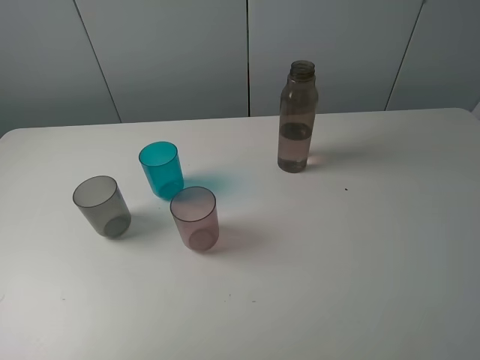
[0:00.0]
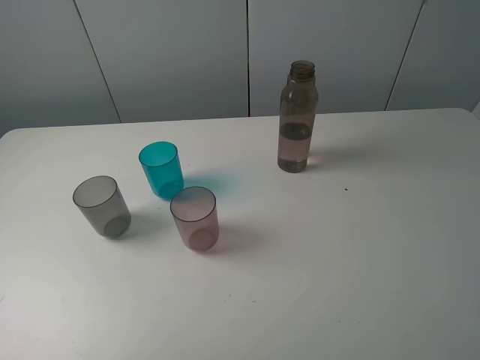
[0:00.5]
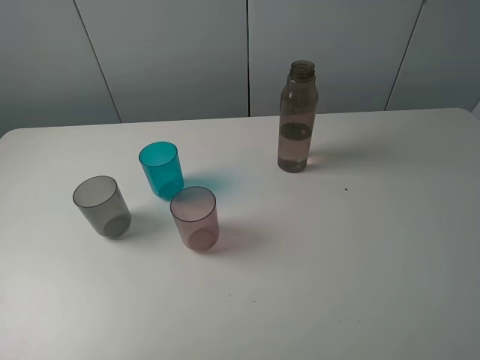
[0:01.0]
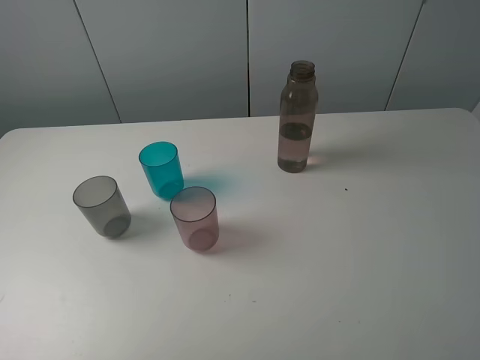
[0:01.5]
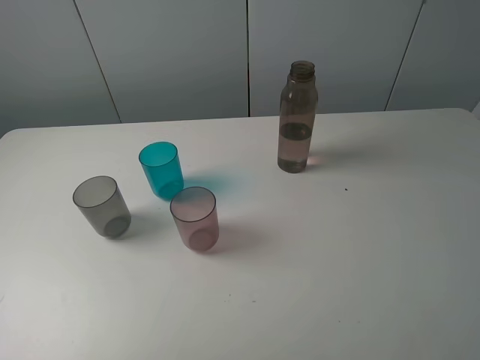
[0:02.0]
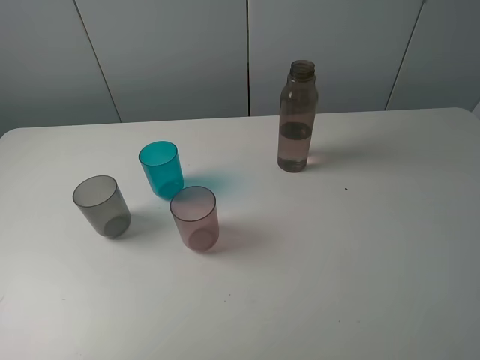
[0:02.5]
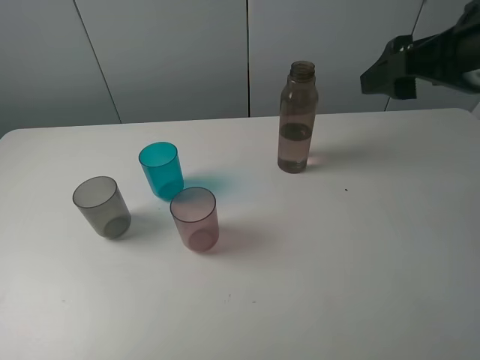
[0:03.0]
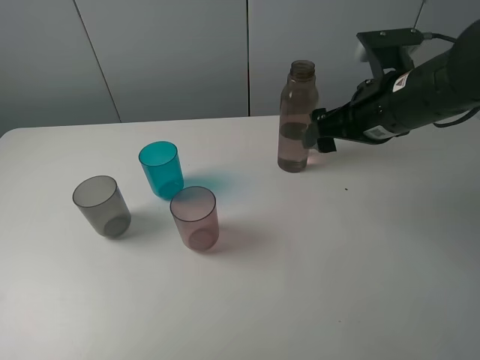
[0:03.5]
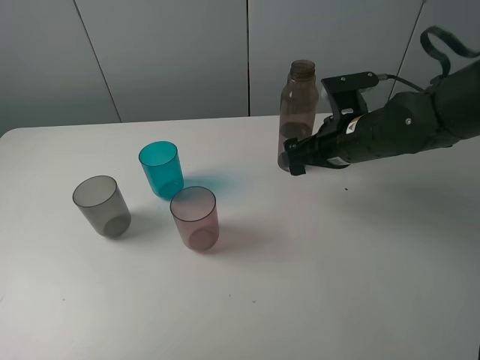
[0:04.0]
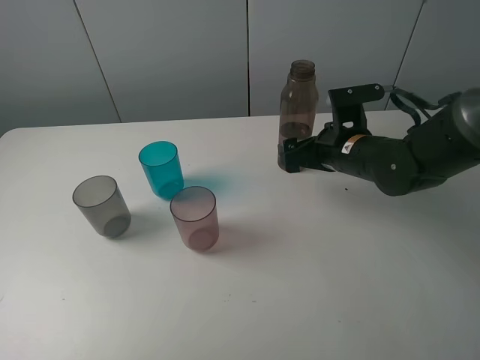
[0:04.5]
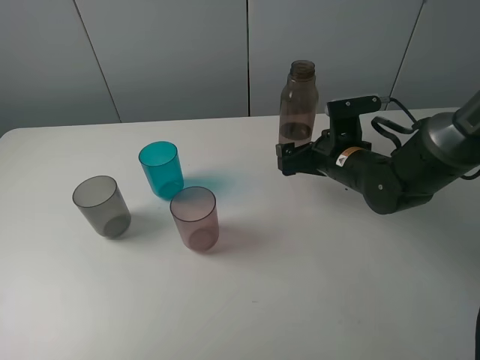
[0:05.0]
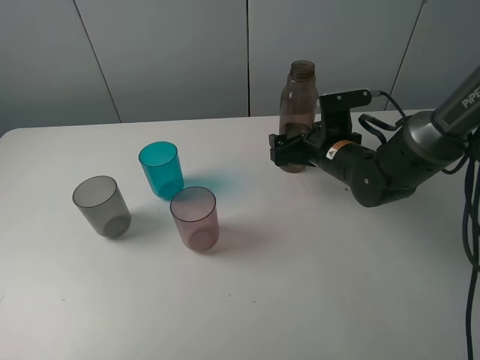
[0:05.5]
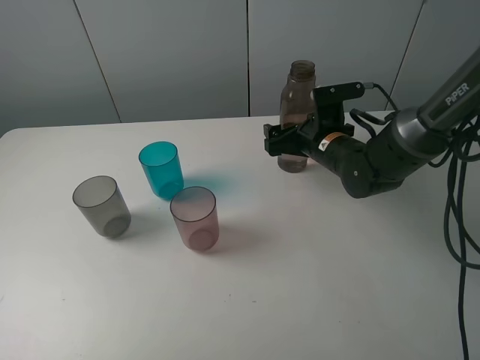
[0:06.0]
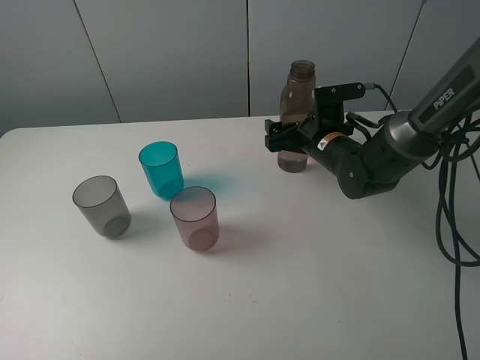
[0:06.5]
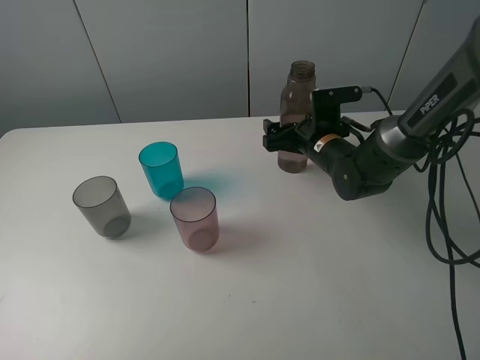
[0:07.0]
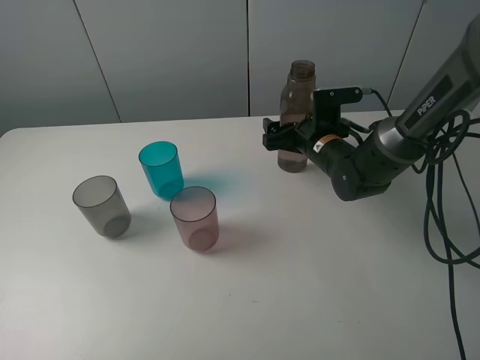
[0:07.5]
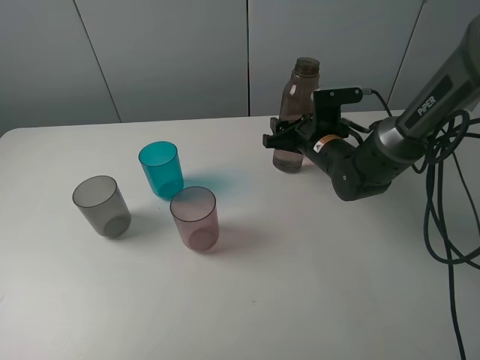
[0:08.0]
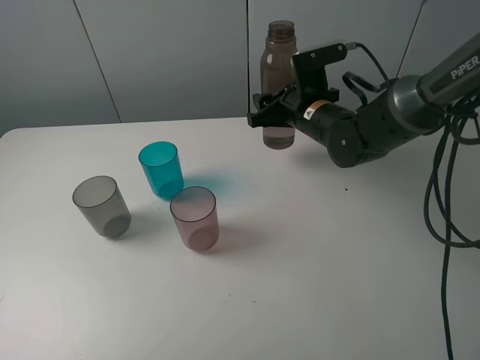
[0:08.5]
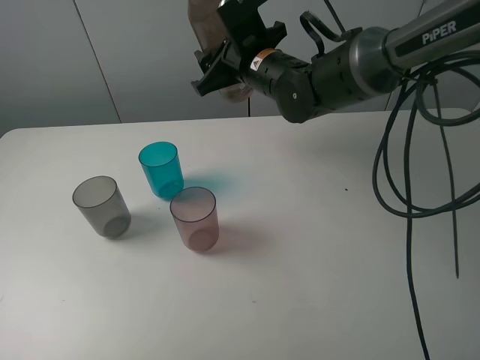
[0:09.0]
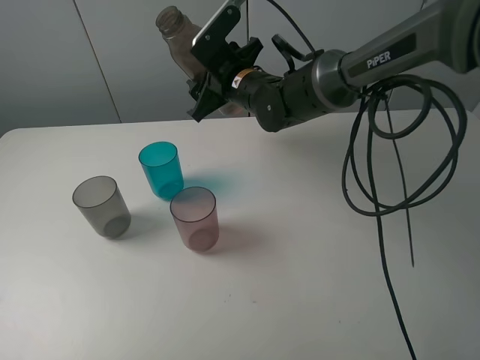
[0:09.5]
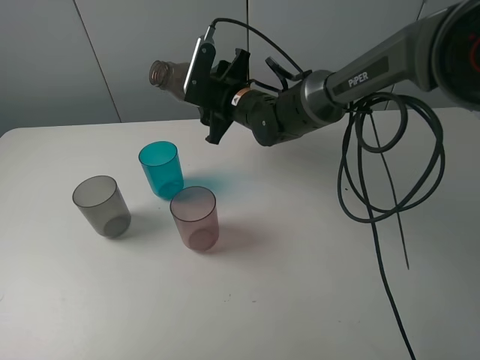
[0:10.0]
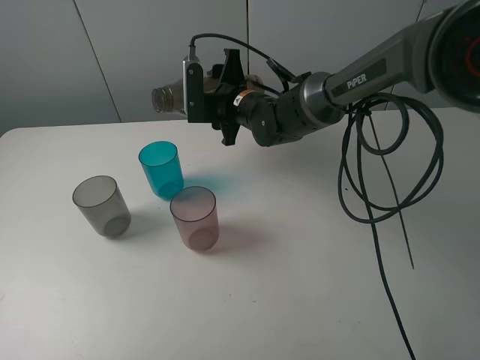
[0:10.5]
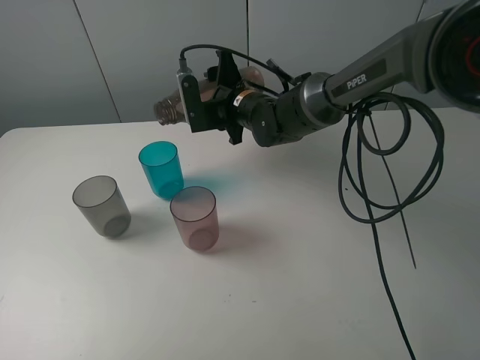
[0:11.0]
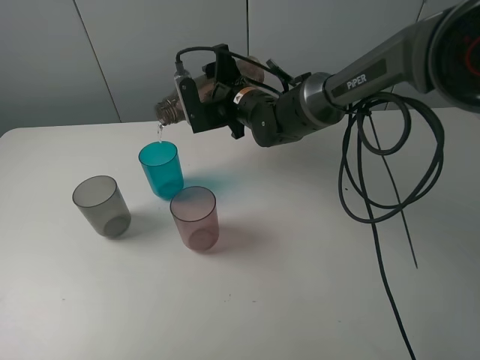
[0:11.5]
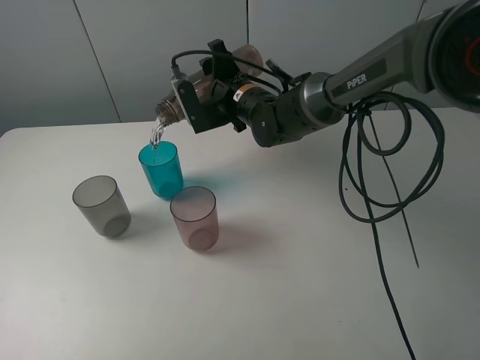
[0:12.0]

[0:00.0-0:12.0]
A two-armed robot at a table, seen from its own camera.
Task of the whole recording: pick up the bottle filled with water and pour water into the middle cup of the three cups.
Step, 0:00.0 to 0:07.5: Grasp the brown bottle with the right gripper.
0:00.0 to 0:02.0: The two grippers keep their place.
0:02.0 to 0:04.0: The right gripper heads forward, to the left and downward, covering roughly 35 cm.
0:04.0 to 0:06.0: The right gripper travels downward by approximately 5 cm.
0:06.0 to 0:08.0: The right gripper closes up.
0:08.0 to 0:10.0: The right gripper heads to the left and upward, covering approximately 15 cm.

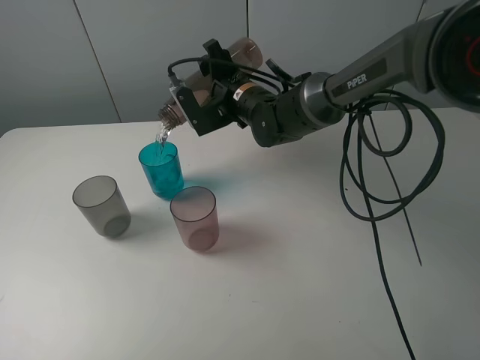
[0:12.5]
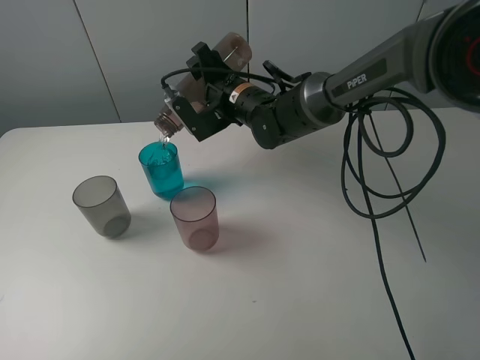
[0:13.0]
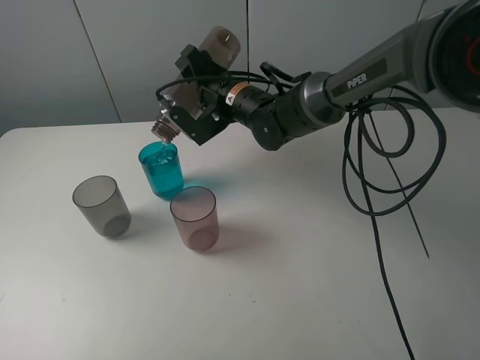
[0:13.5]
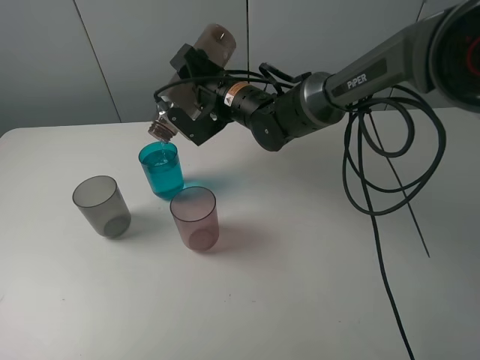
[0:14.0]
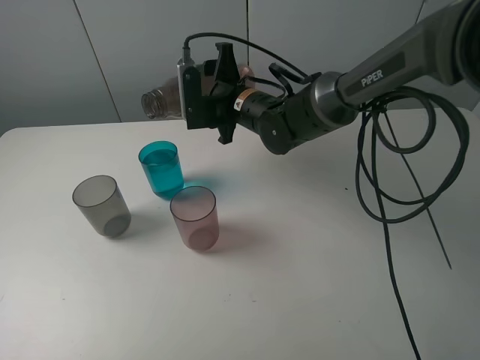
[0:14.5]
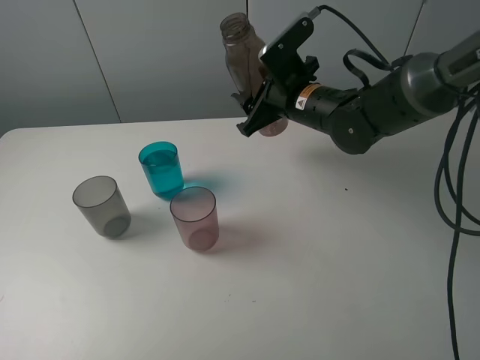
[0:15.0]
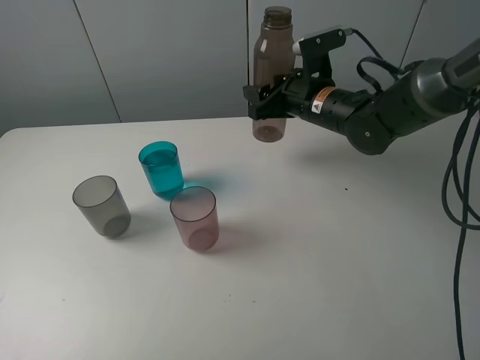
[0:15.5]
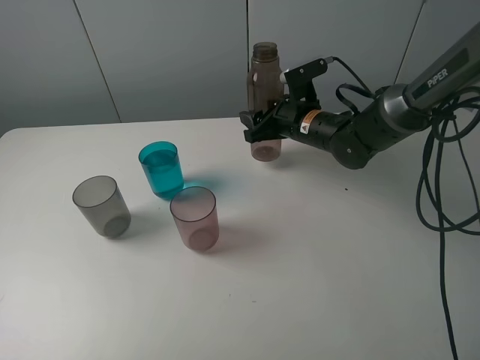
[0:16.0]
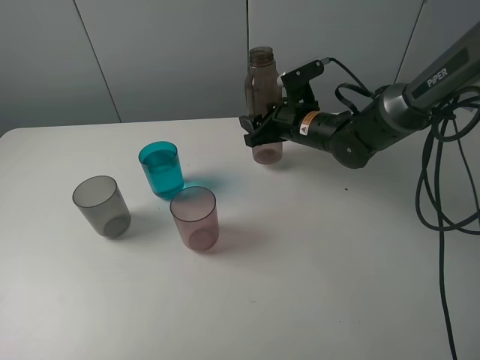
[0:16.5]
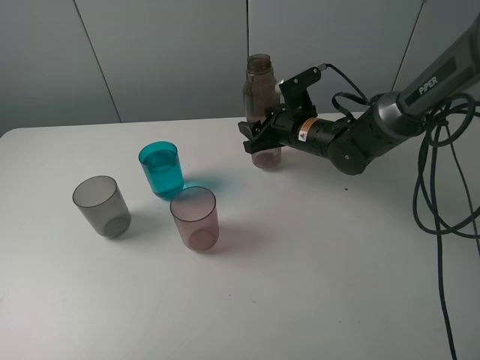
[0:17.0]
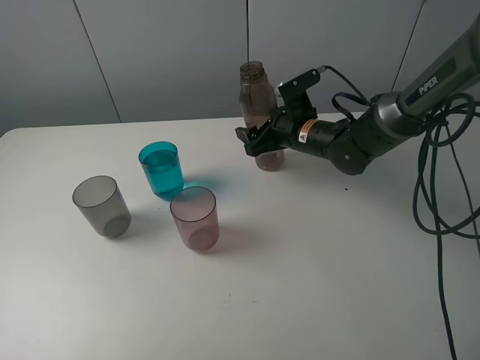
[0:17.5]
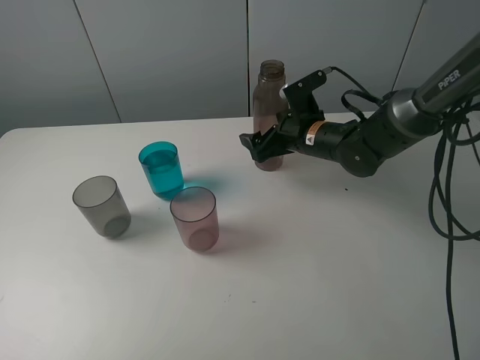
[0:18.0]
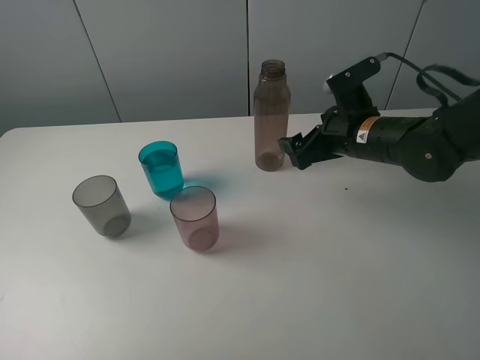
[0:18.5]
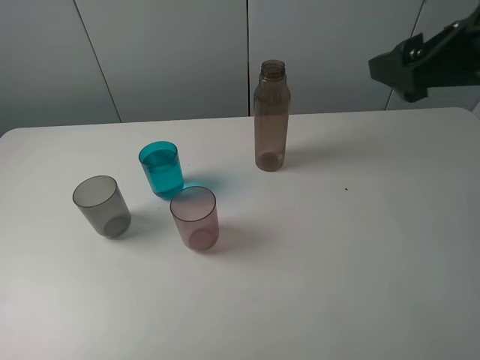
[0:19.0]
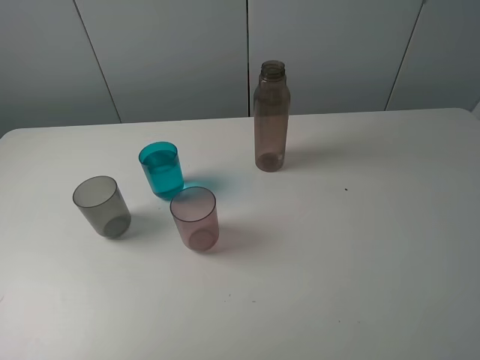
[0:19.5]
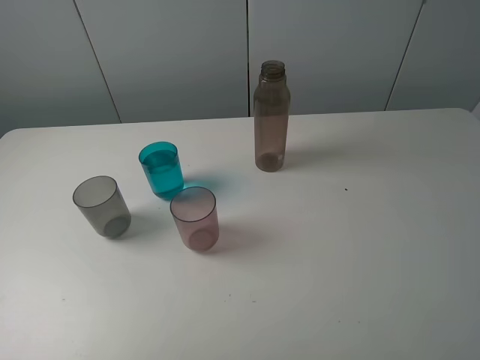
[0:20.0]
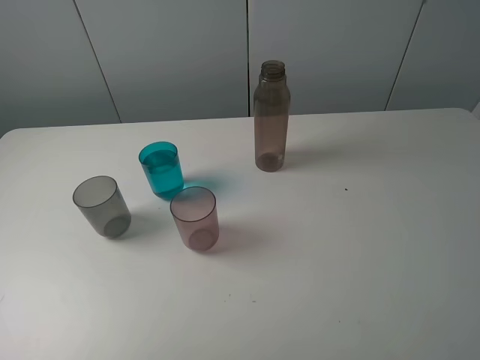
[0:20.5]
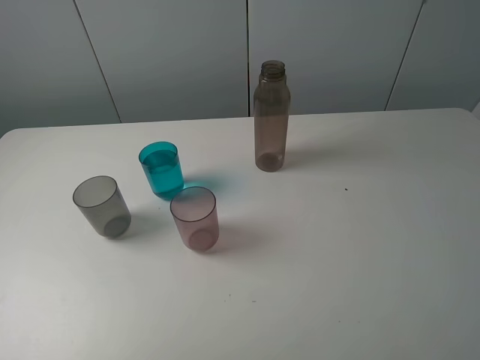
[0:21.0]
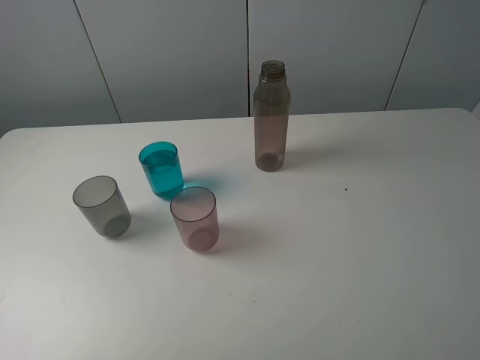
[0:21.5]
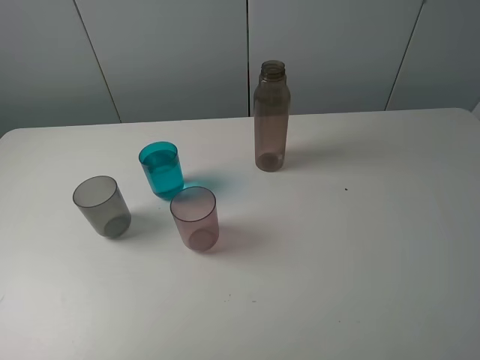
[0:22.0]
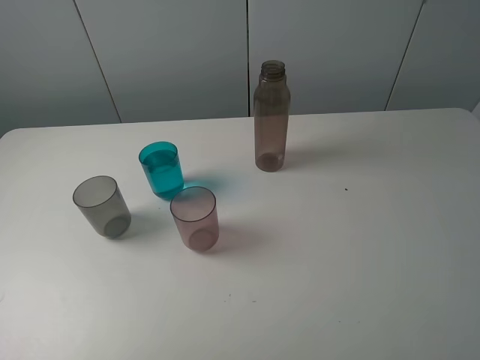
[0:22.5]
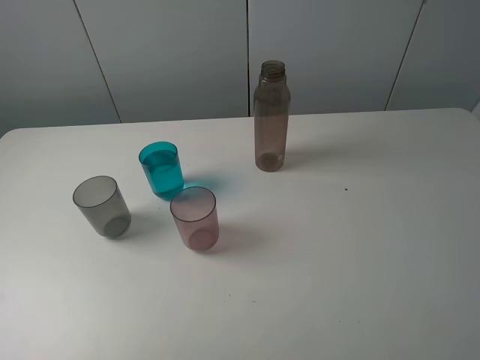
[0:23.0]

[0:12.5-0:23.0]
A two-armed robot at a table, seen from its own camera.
Task of the whole recording: pick up the bottle filled with water and pour water into the middle cup of the three cups.
Step, 0:14.5 to 0:18.0: Place the brown bottle with the right gripper.
0:14.5 to 0:16.5: The right gripper shifts approximately 10 cm to the right.
0:16.5 to 0:19.0: The right gripper is displaced upward, backward and to the right by approximately 30 cm, and opens its fingers.
0:19.0 to 0:21.0: The right gripper goes approximately 20 cm backward.

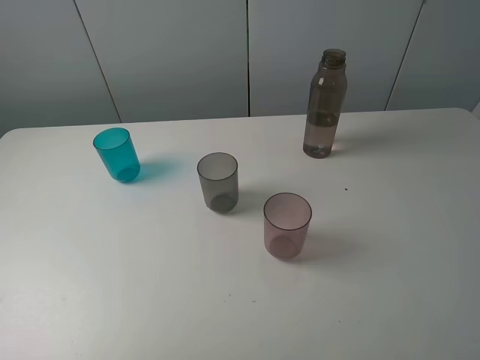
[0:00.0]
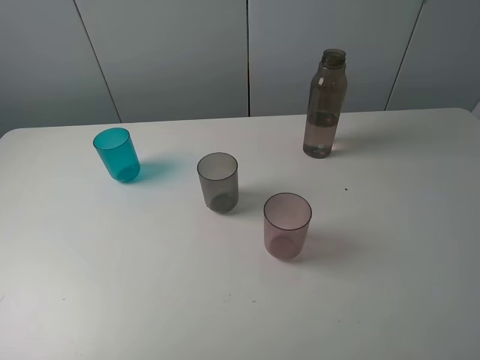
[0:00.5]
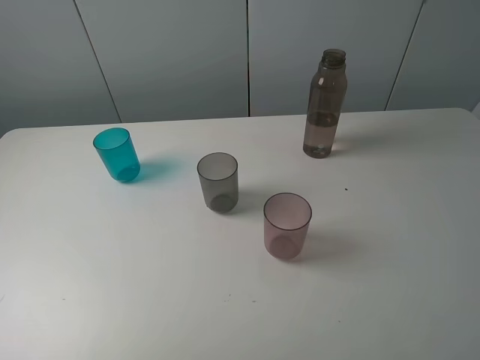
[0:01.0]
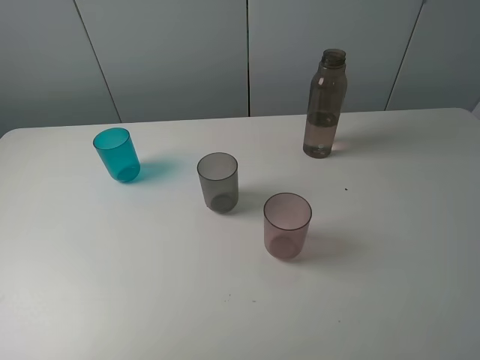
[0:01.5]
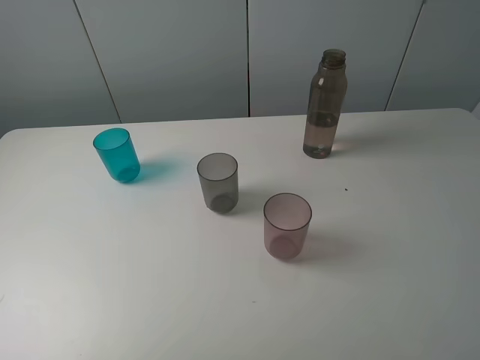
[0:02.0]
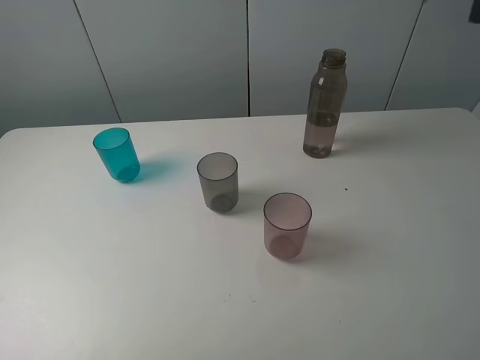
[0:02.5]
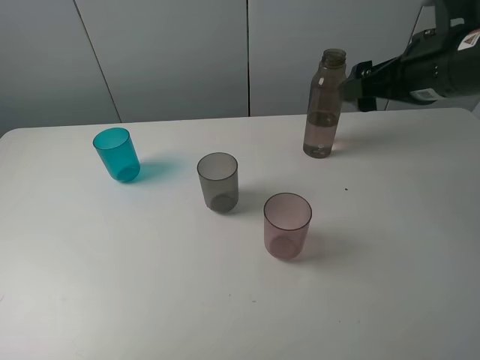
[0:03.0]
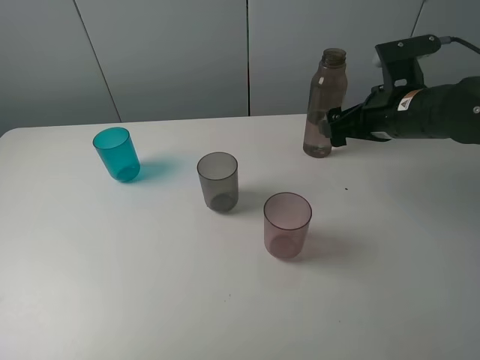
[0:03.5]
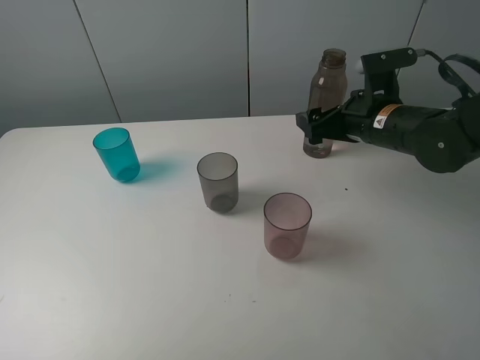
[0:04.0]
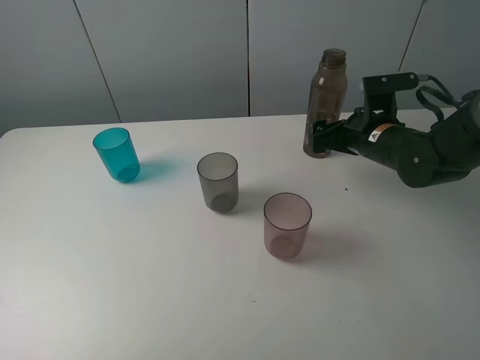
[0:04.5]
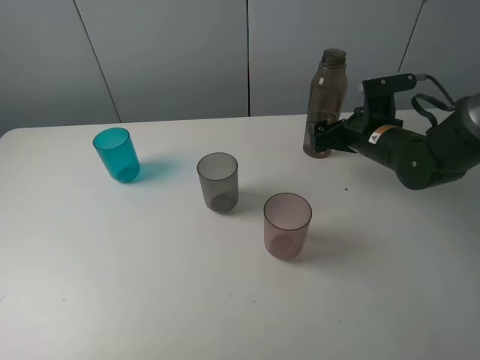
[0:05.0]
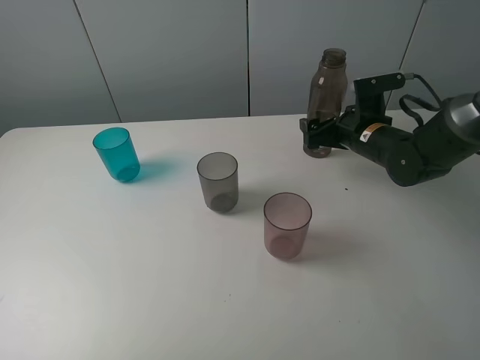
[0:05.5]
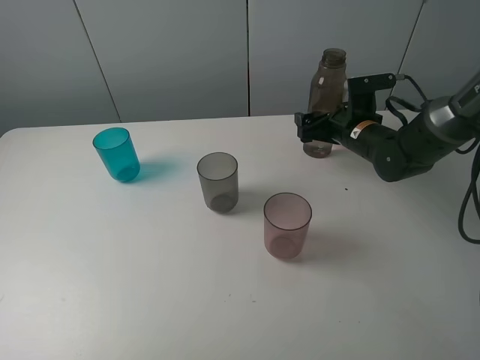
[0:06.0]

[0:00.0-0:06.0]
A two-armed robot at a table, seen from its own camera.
Task of the whole recording: pick up the bottle filled with water and pour water into the middle cup of the three cups.
0:02.0 to 0:04.0: The right gripper is displaced forward and downward by approximately 35 cm.
0:04.0 to 0:06.0: The right gripper heads downward and forward, covering about 10 cm.
